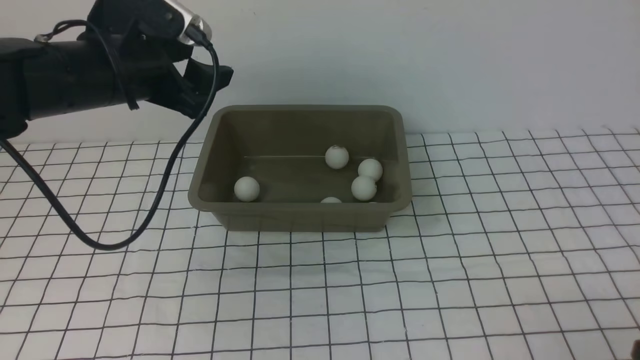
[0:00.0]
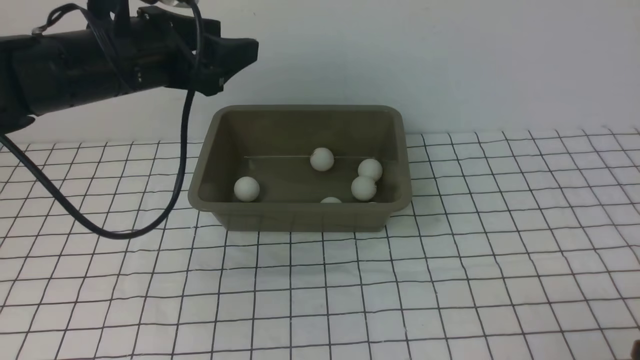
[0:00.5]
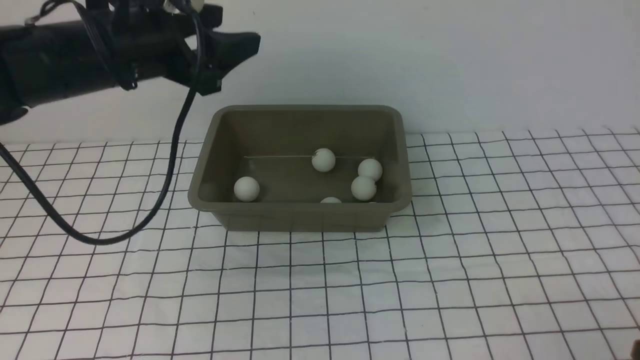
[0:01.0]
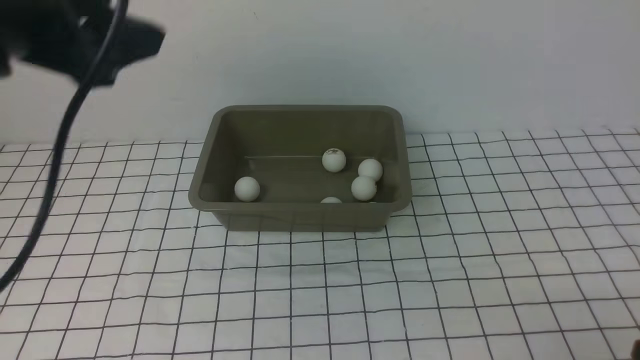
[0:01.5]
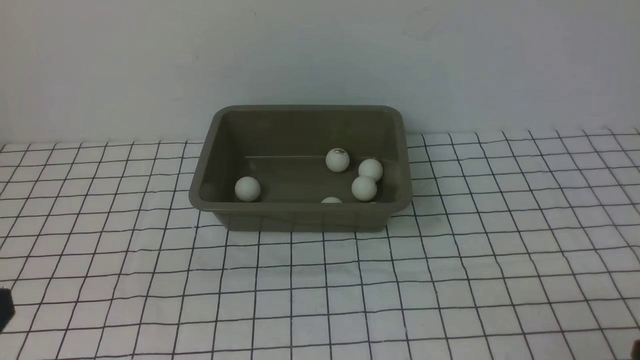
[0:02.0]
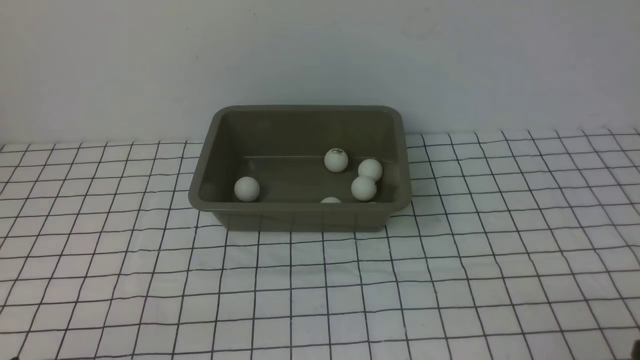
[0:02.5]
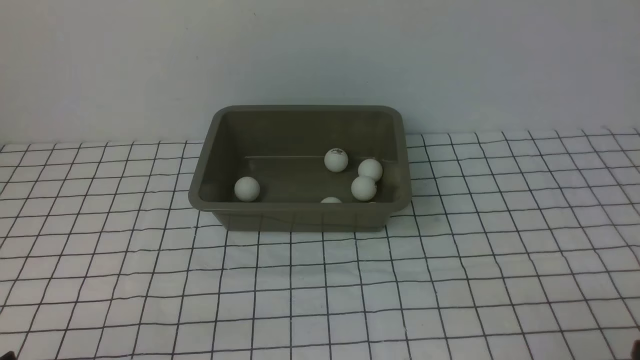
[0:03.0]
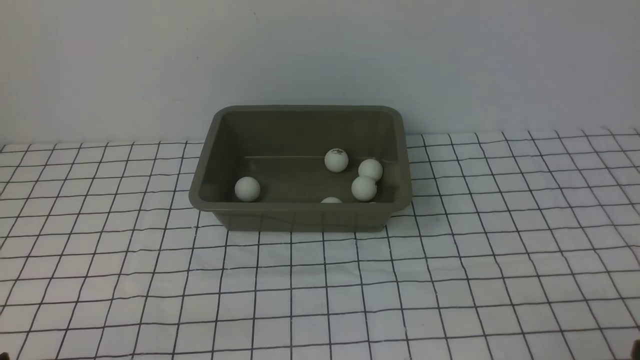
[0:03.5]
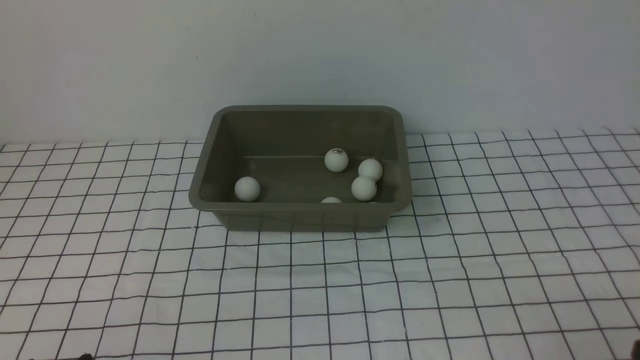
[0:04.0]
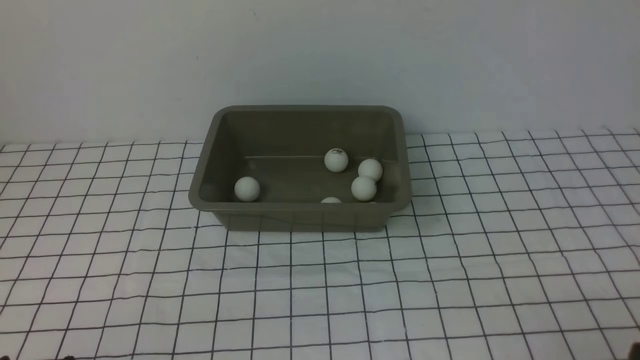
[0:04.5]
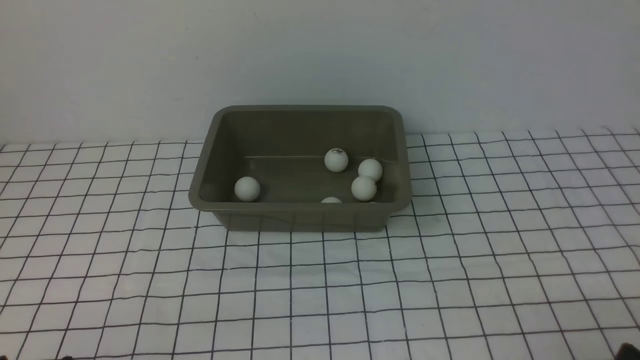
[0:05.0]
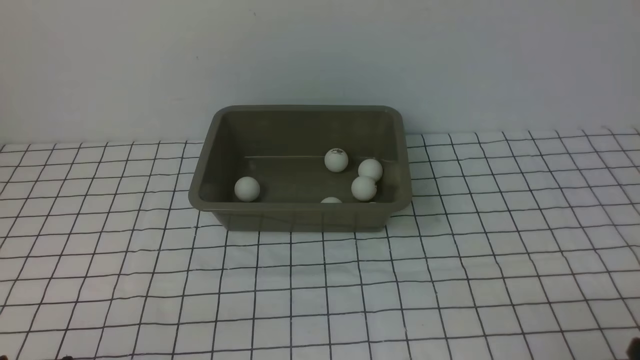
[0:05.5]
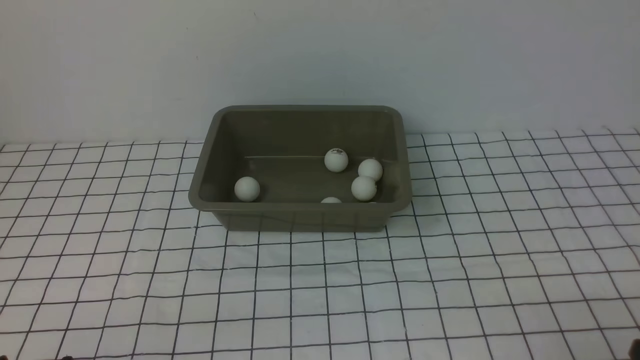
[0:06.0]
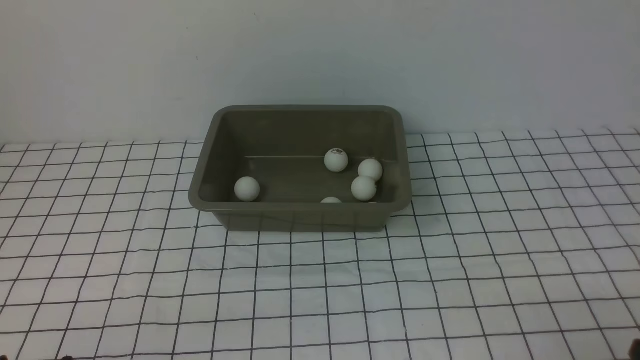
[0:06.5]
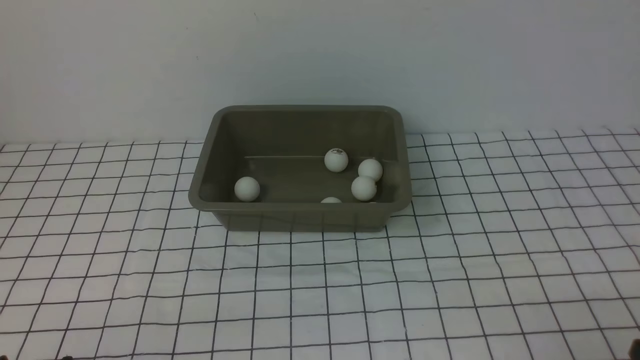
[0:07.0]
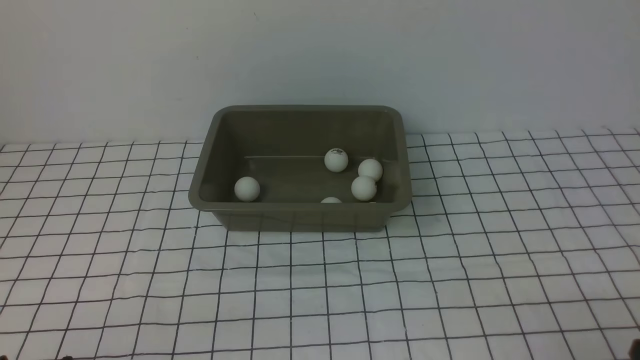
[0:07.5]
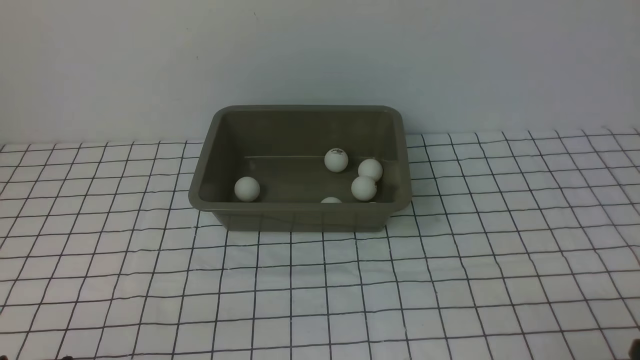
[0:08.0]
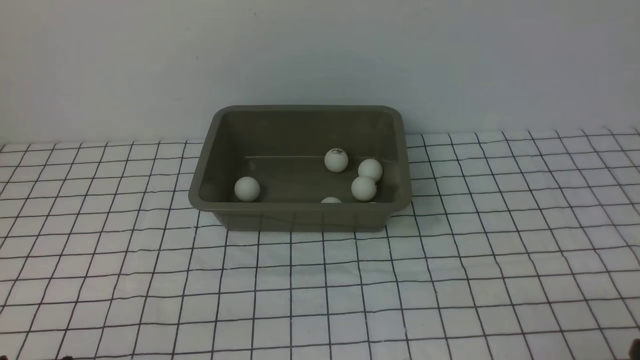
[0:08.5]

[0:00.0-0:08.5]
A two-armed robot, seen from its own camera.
0:00.0 to 0:02.0: The left gripper shifts approximately 30 cm backward.
0:06.5 to 0:08.5: The two grippers keep their place.
